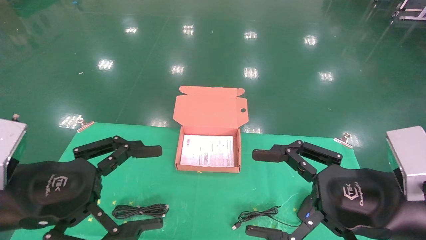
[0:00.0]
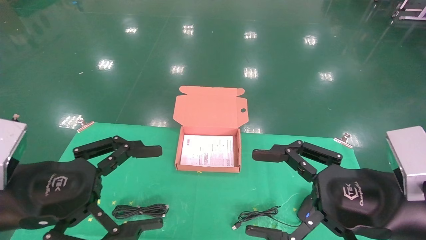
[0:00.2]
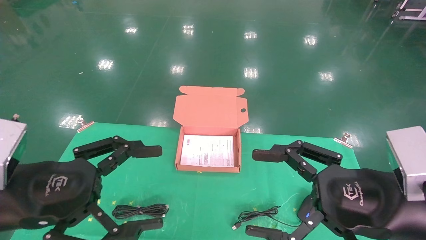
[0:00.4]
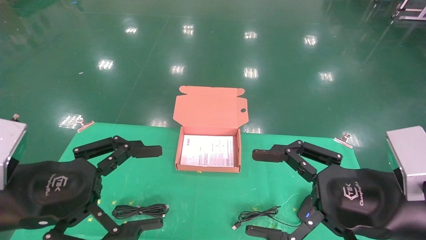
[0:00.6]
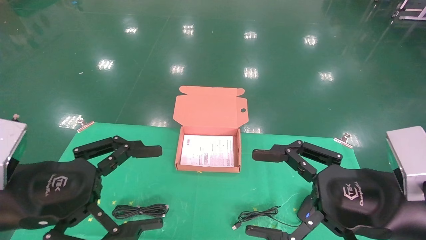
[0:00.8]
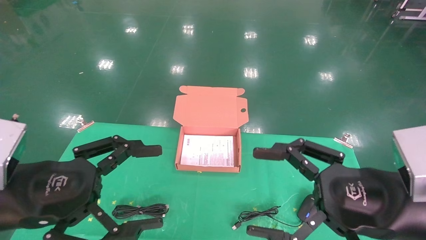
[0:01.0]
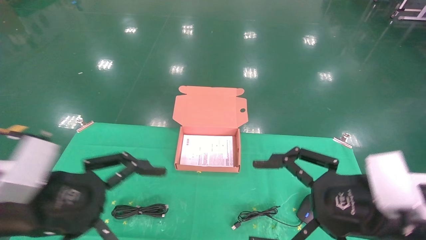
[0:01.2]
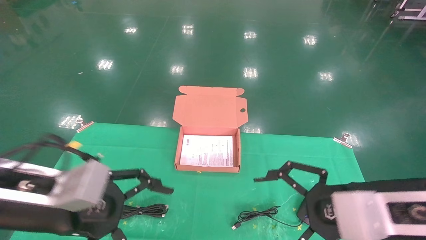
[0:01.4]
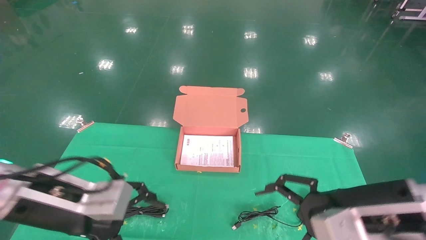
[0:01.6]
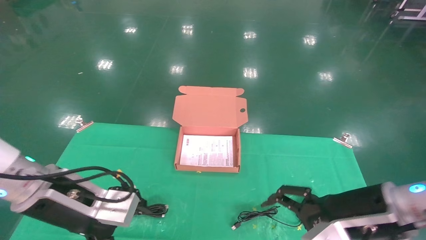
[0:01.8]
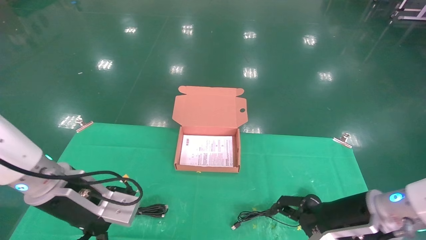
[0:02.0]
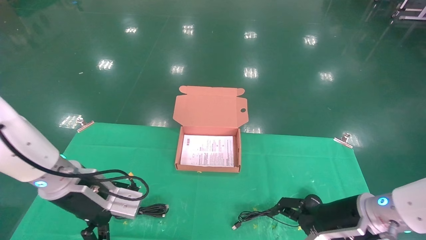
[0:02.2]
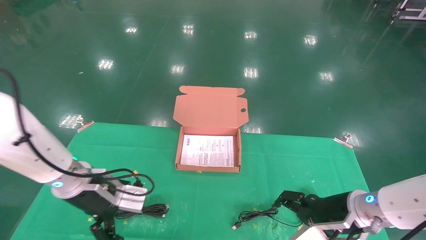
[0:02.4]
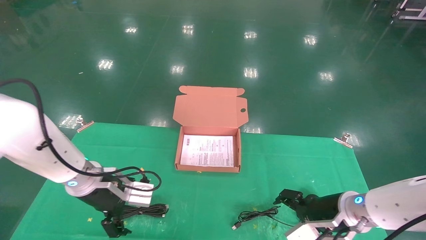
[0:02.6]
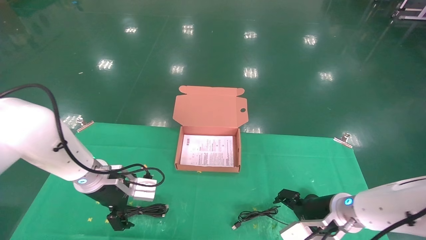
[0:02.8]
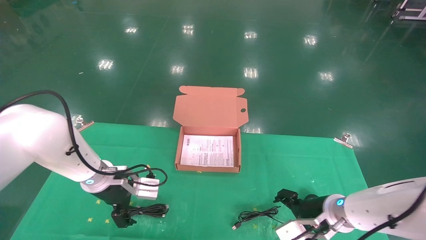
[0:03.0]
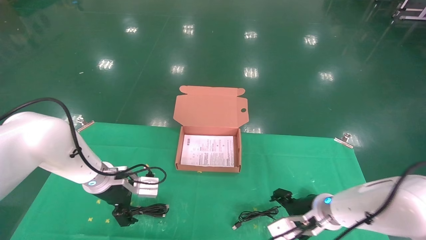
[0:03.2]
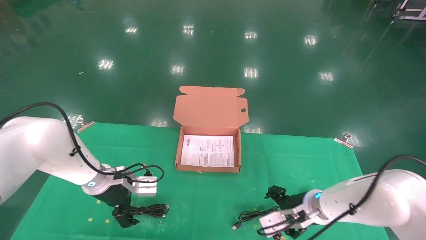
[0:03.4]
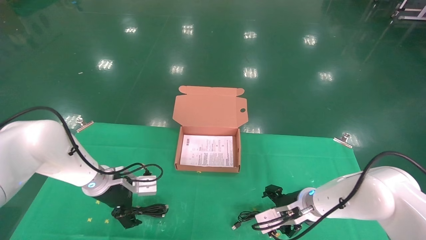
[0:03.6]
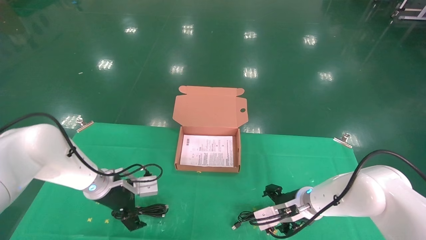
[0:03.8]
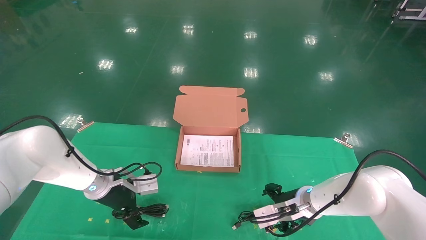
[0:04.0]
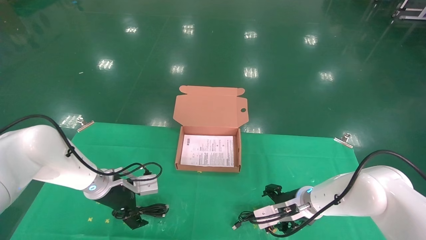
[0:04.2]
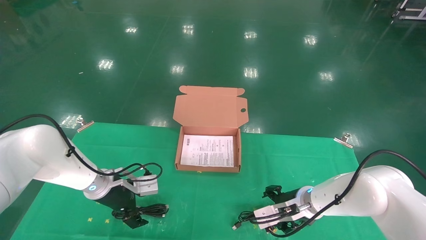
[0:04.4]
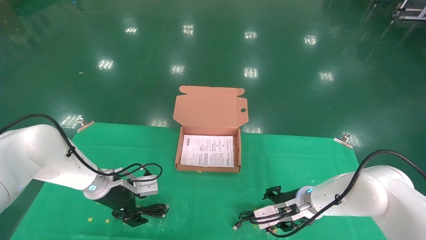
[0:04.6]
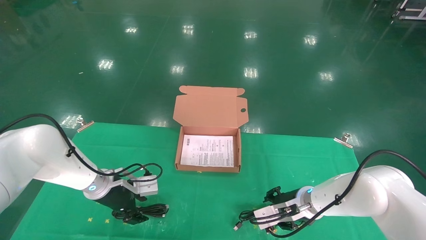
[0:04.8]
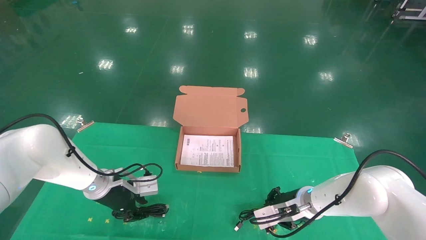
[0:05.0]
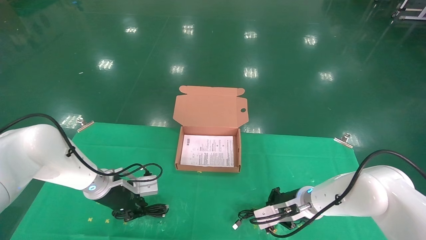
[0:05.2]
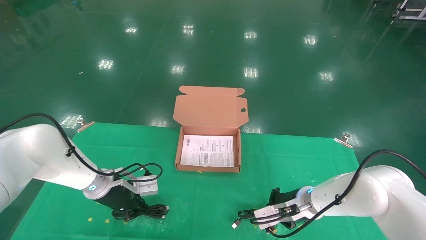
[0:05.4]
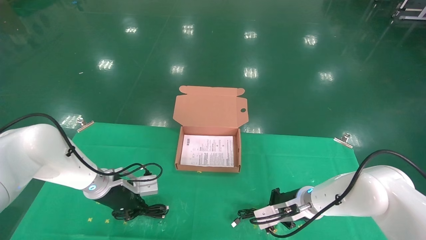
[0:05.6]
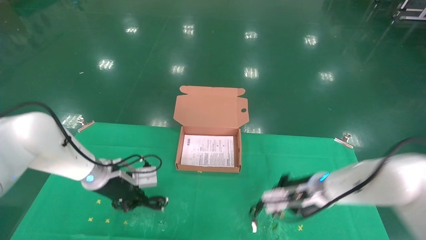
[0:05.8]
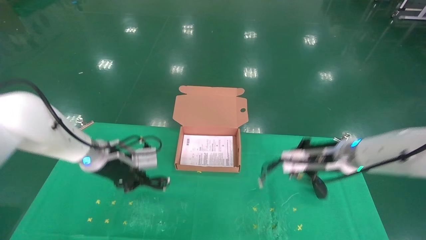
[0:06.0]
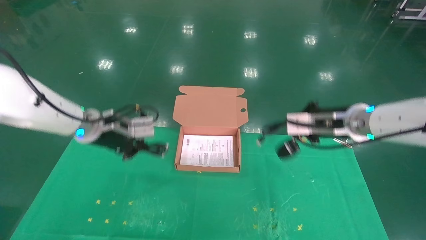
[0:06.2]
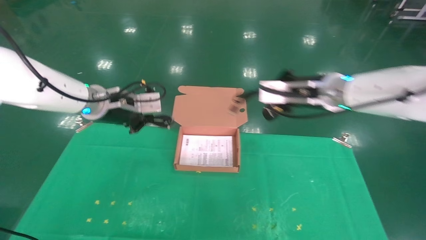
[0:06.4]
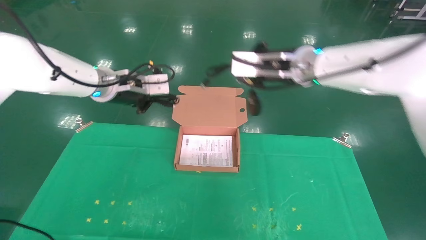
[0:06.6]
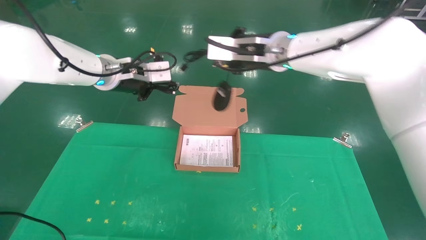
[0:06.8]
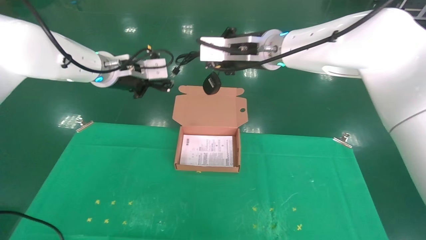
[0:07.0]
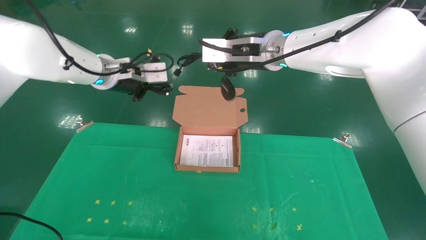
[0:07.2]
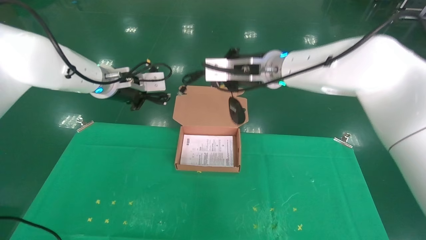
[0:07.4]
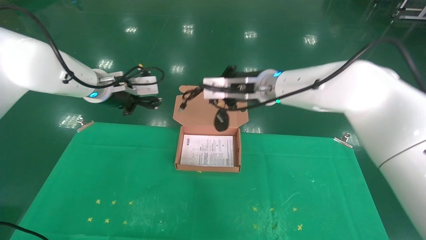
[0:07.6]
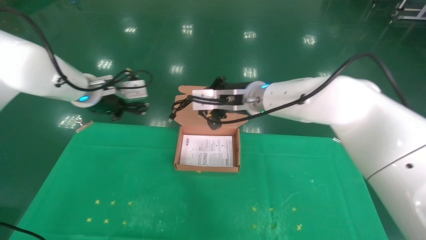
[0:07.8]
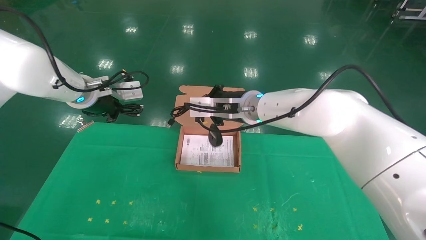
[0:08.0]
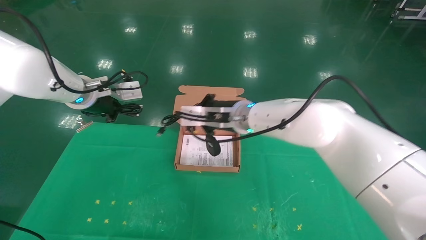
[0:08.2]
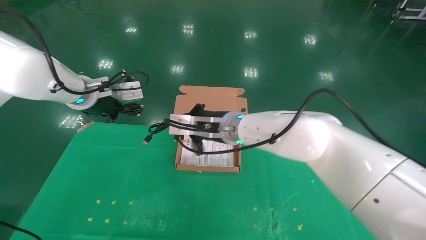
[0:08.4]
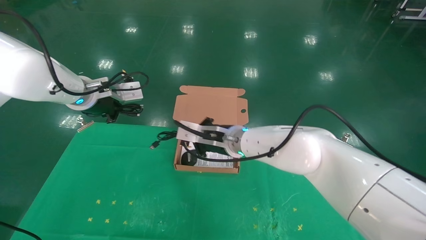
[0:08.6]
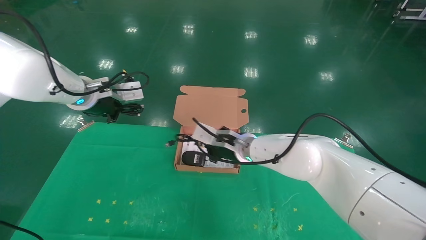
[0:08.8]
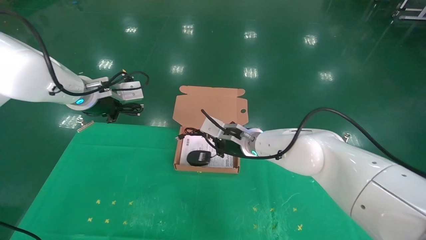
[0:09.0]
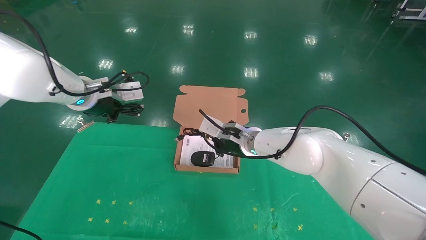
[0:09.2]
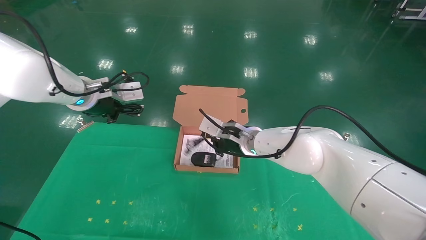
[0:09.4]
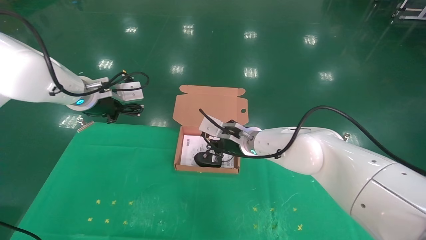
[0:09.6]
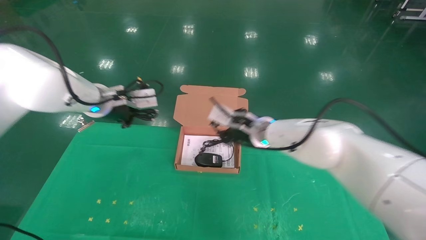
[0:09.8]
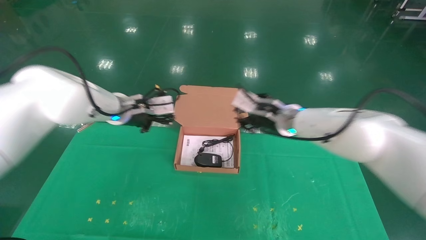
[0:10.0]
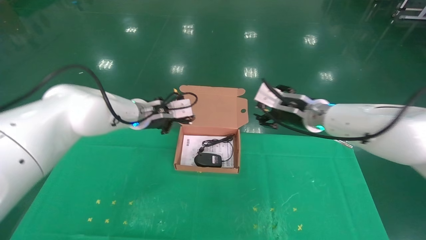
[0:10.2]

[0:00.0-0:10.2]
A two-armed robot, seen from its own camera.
Task of the whole recording: grasp data cable left put into box grasp mouse right put into box.
Step, 0:01.0 to 0:05.6: Grab and pick up both the mouse and power cord from the accessory packaging area at the same time.
0:01.4 to 0:03.0: The two grippers go some 20 cm forward and downward.
0:03.0 to 0:04.4: The right gripper shifts roughly 5 cm forward. Meanwhile the left gripper moves approximately 5 cm.
0:04.4 to 0:05.8: The right gripper goes about 5 cm upward, and closes its fingers; the left gripper closes.
0:05.8 to 0:07.2: The right gripper shifts approximately 30 cm upward and to the left, while the left gripper goes approximately 20 cm upward.
0:07.2 to 0:08.8: The left gripper moves some 5 cm, while the right gripper travels downward by some 20 cm.
0:08.8 to 0:10.2: The left gripper is displaced to the right and downward by approximately 10 cm; the right gripper is displaced to the right and upward by approximately 15 cm, and opens its fingers.

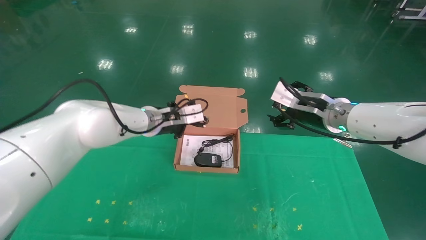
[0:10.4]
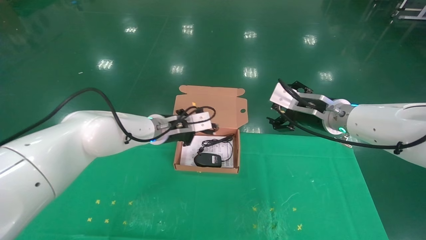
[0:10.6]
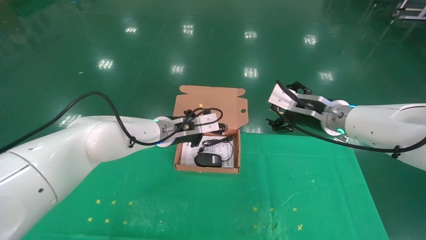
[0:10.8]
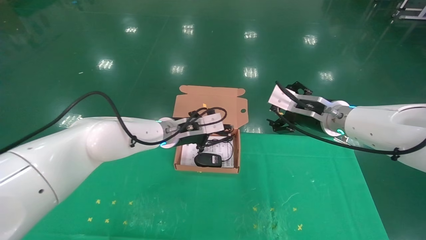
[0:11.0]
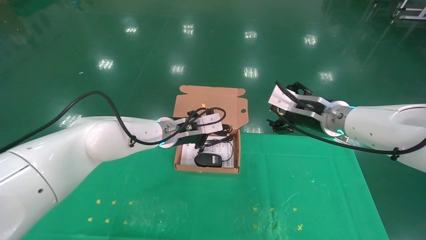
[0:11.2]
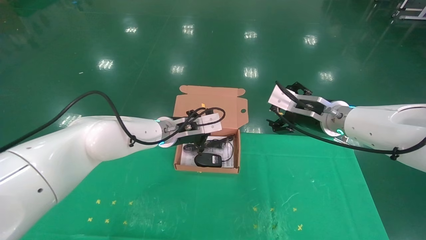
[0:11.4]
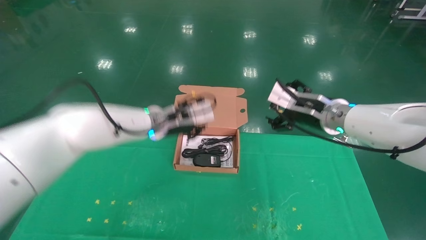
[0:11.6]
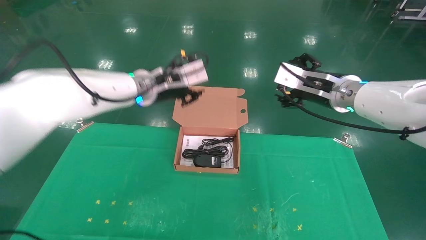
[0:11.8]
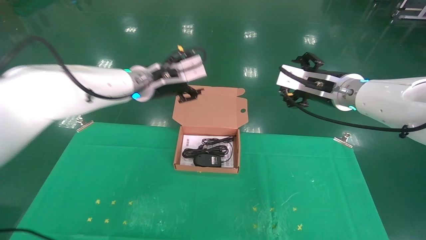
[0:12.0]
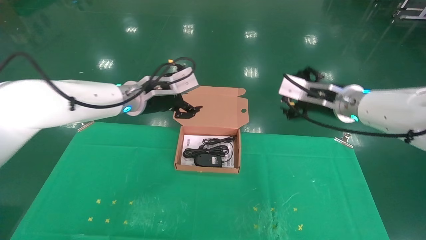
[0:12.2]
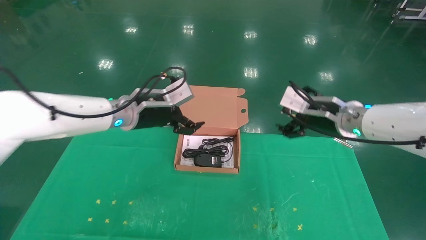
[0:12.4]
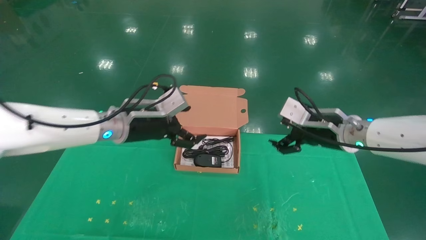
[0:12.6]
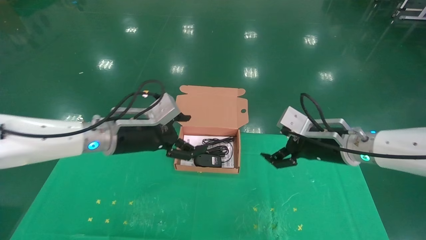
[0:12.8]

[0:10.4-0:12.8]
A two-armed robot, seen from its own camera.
Task of the whole recording: grasp data cable left put into box grasp mouse right put into box.
0:10.4 to 0:11.6: There are only small adjustments of the grippers.
0:11.6 to 0:12.8: The right gripper heads downward, covering approximately 5 cm, while the left gripper goes about 10 cm backward and to the left, and opens up.
